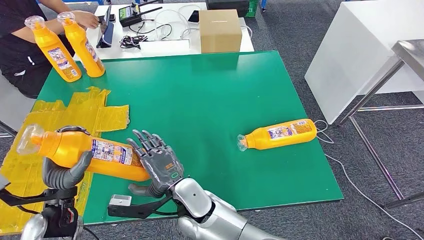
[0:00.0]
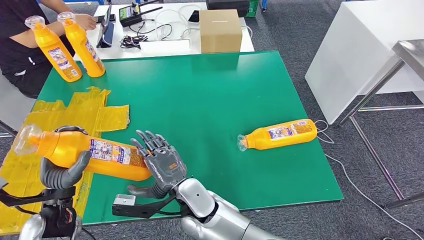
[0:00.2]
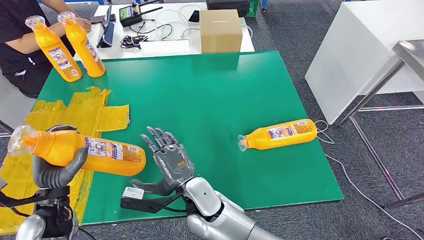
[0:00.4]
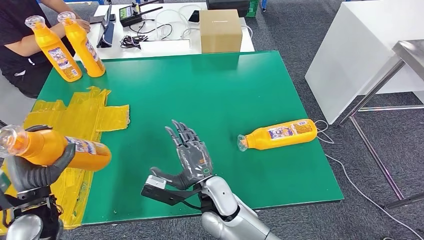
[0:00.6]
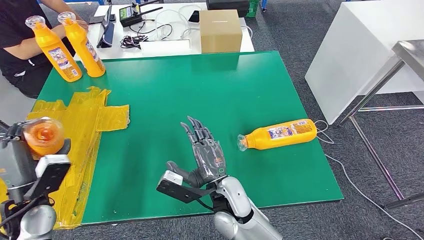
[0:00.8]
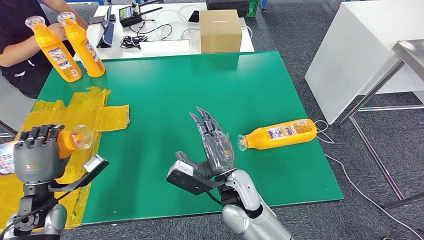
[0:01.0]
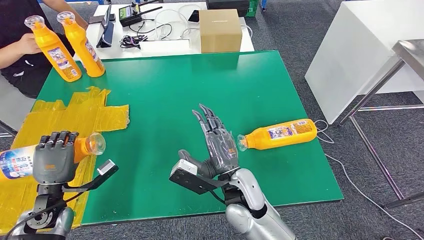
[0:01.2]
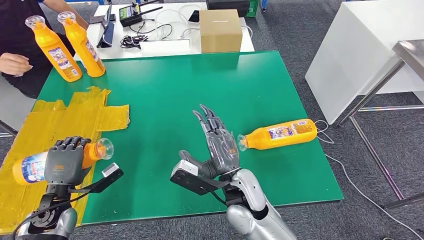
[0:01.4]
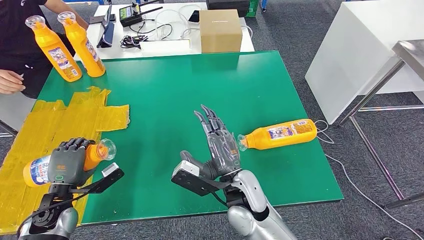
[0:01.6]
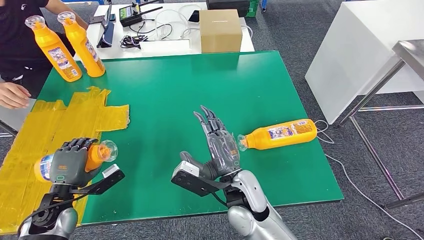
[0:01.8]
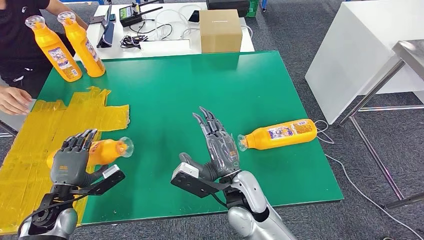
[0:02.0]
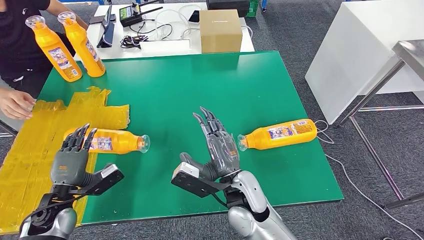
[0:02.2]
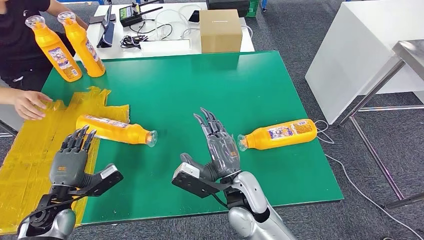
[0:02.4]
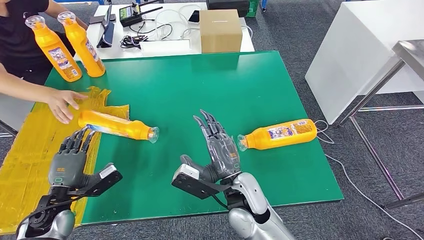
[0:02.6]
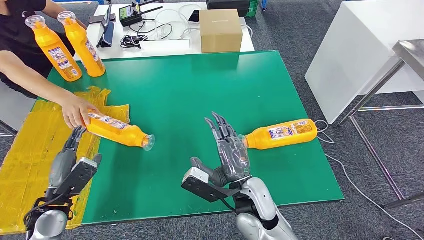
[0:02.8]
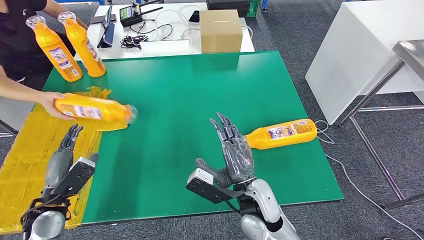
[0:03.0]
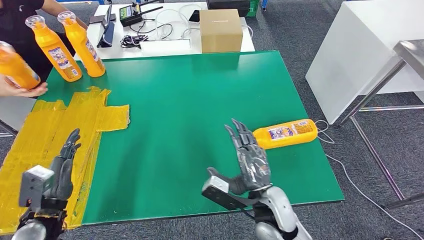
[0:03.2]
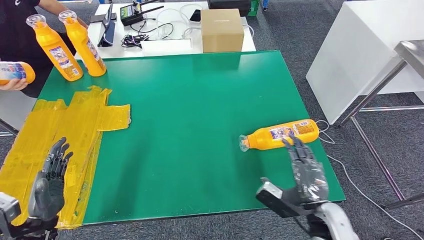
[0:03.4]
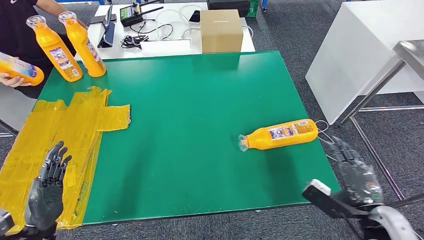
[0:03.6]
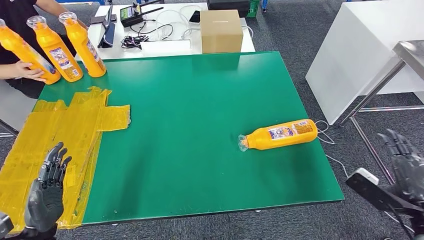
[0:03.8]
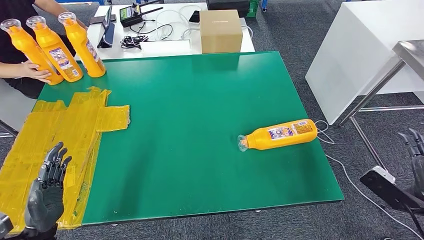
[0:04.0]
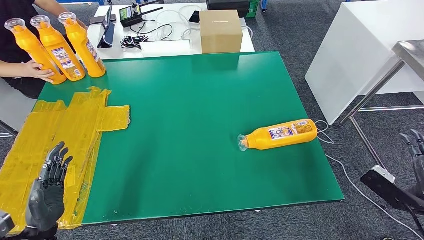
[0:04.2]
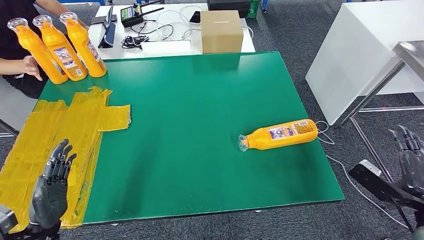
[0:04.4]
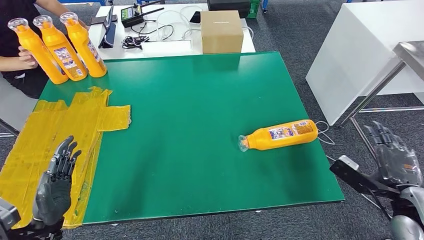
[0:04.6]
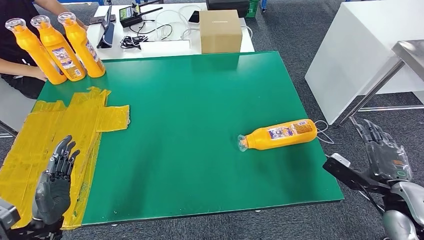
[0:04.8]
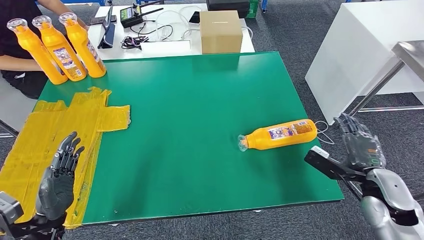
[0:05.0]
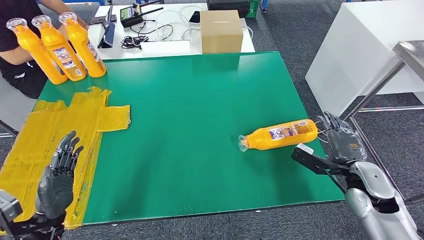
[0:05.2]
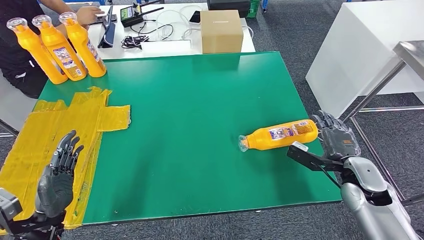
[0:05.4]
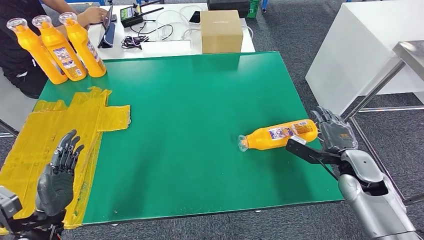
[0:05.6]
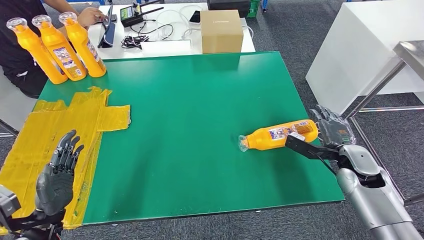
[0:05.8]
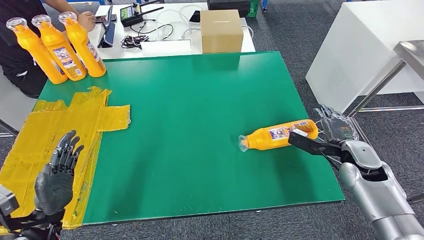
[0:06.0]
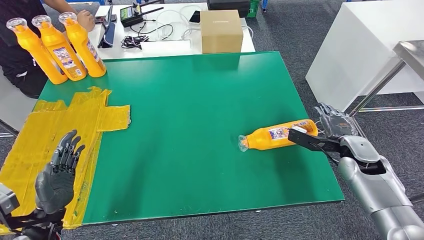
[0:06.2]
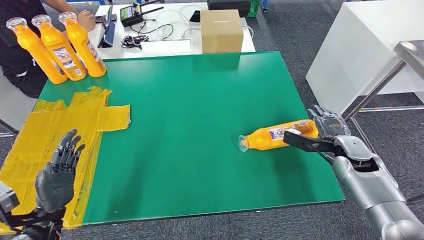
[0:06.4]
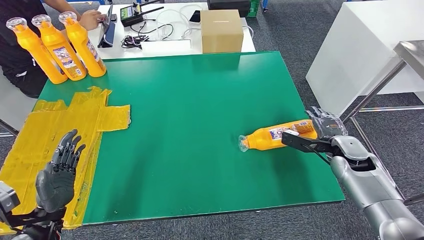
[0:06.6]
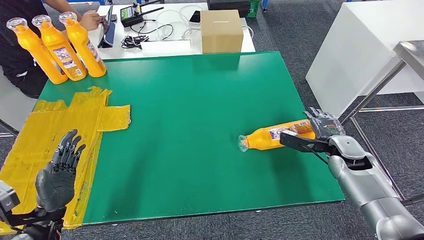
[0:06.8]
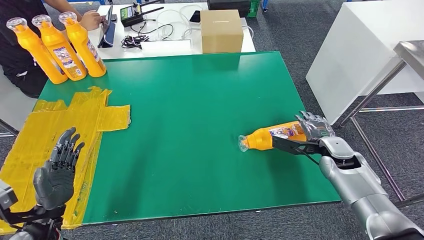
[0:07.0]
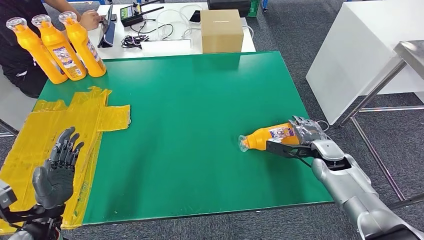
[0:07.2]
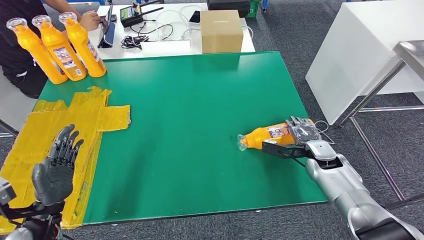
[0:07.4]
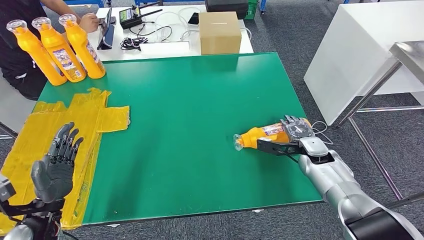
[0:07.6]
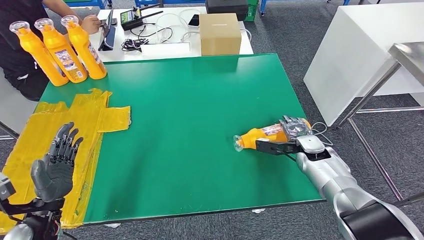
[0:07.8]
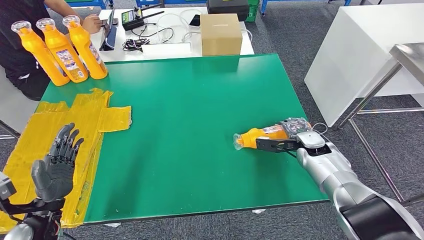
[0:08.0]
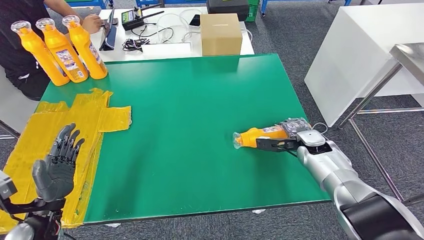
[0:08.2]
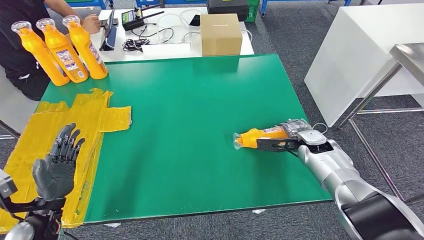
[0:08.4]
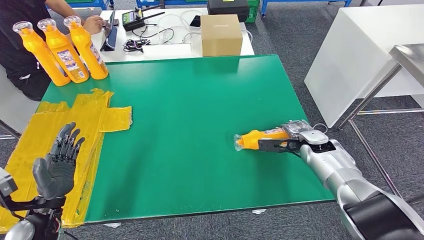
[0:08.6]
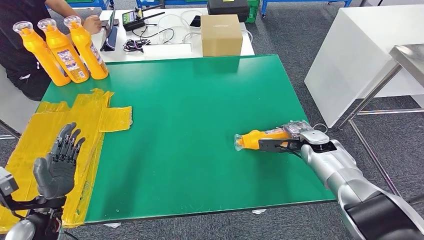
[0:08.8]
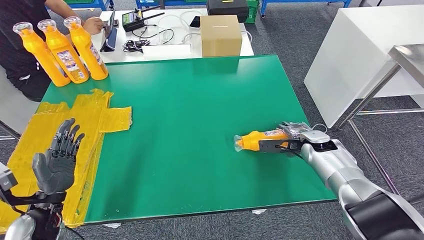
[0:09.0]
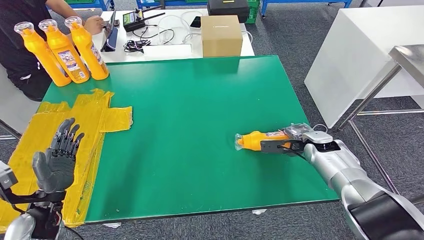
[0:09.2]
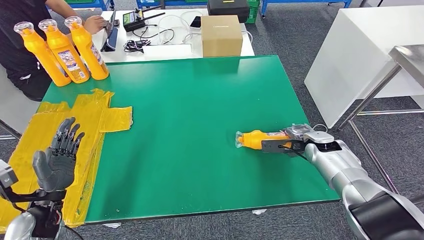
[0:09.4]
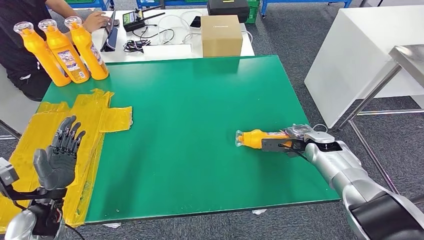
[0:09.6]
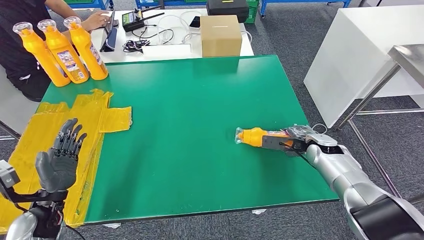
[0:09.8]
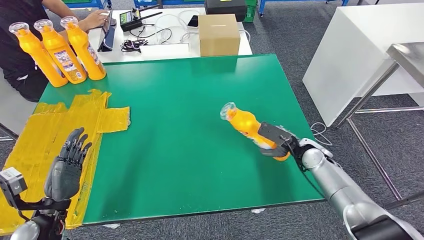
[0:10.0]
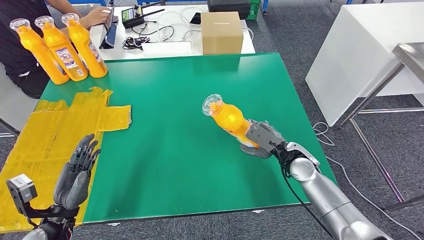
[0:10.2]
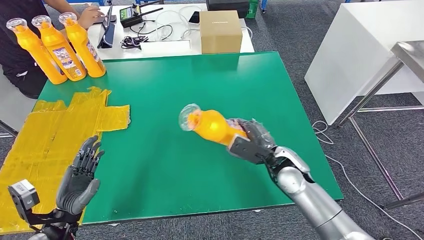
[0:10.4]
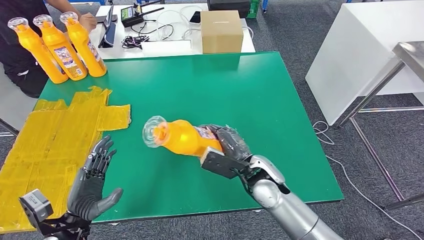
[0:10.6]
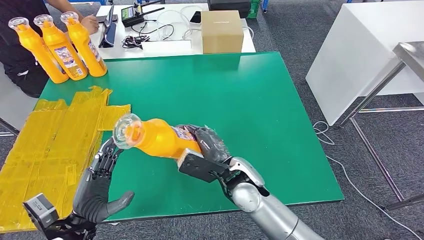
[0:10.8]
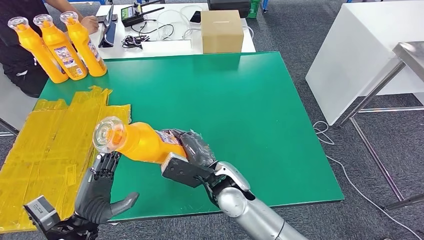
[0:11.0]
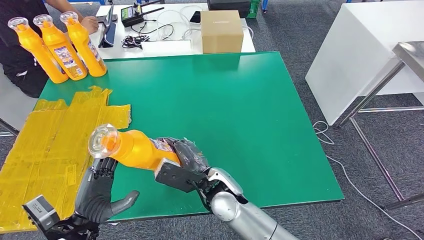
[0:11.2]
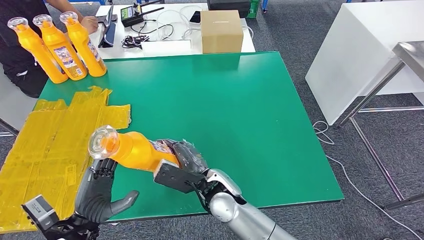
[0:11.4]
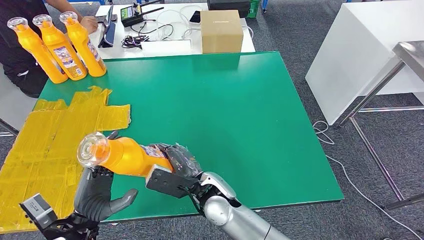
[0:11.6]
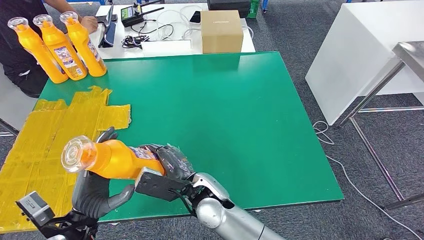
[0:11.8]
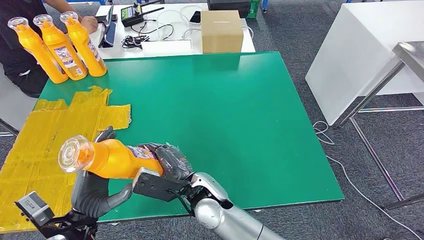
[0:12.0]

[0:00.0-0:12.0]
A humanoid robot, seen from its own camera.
Step, 0:00.0 to 0:02.8: Flip the fast-moving consumer goods bottle to the front side.
Step, 0:03.0 to 0:11.6: Pick up the fast-moving consumer goods bottle from the table.
0:00.0 to 0:01.6: The left hand shifts roughly 5 cm downward. The right hand is displaced to the right by approximately 10 cm.
0:04.4 to 0:06.0: The right hand travels forward by roughly 15 cm.

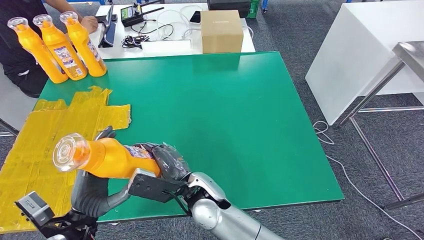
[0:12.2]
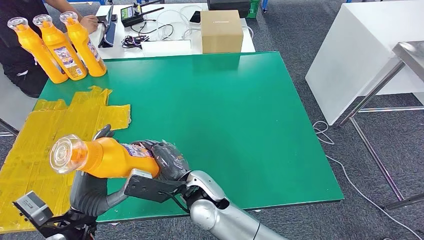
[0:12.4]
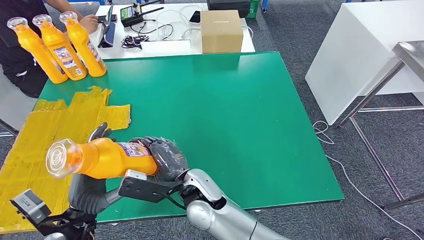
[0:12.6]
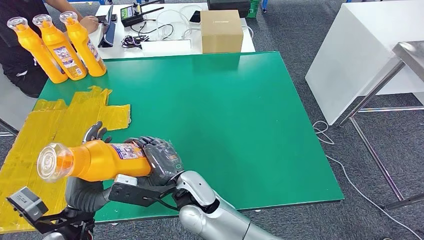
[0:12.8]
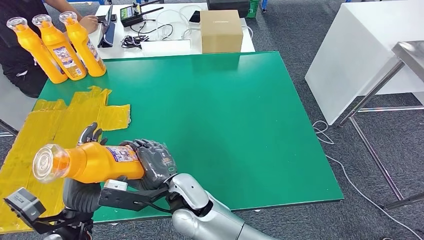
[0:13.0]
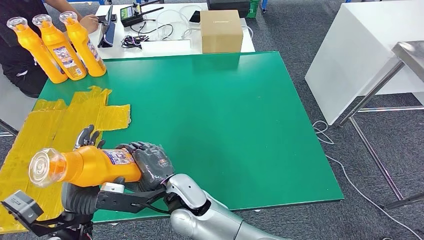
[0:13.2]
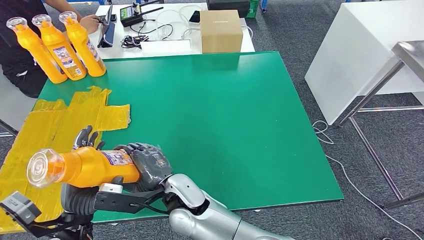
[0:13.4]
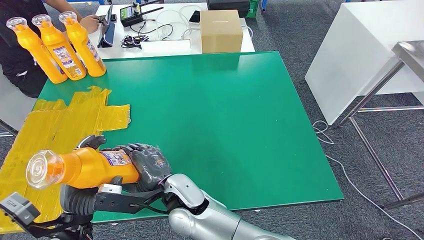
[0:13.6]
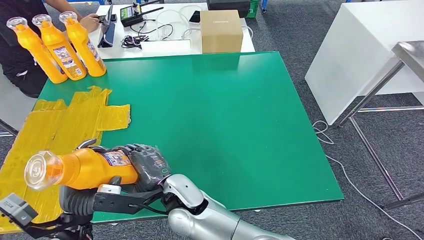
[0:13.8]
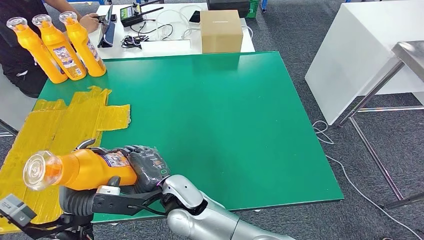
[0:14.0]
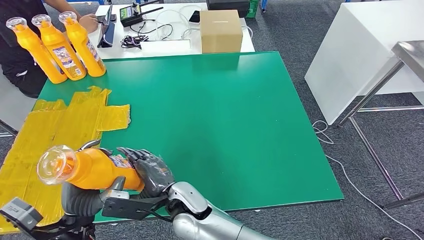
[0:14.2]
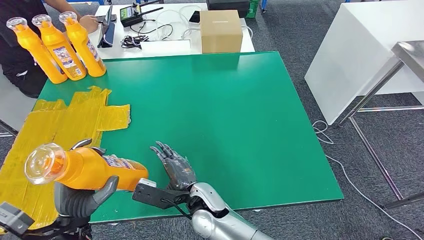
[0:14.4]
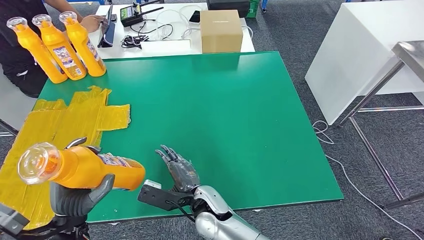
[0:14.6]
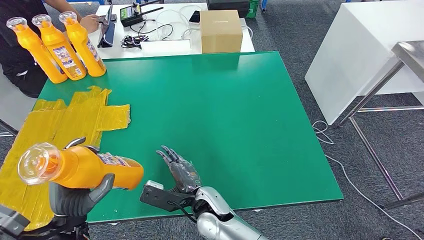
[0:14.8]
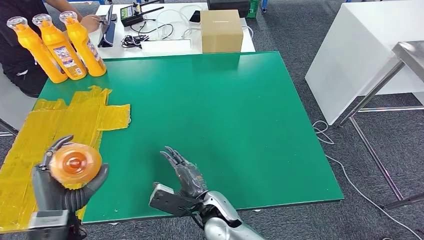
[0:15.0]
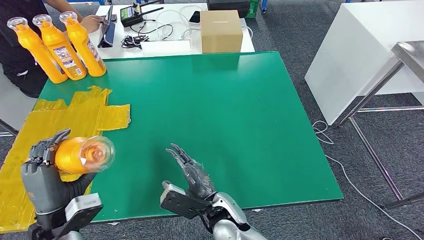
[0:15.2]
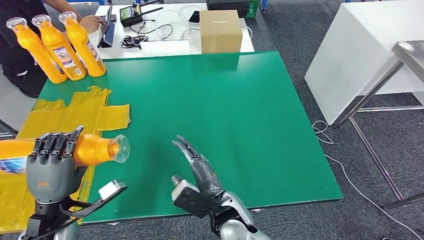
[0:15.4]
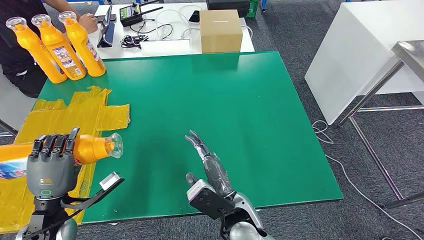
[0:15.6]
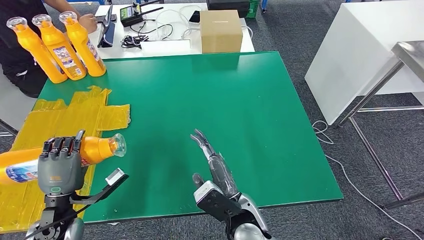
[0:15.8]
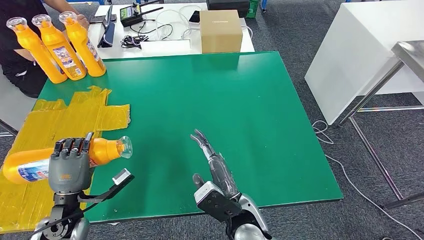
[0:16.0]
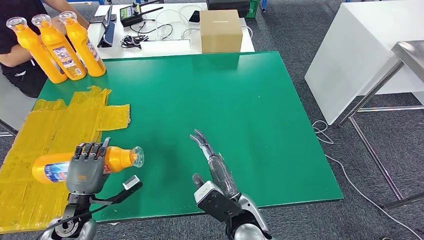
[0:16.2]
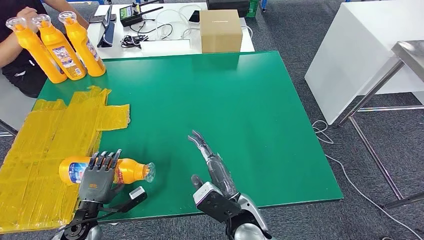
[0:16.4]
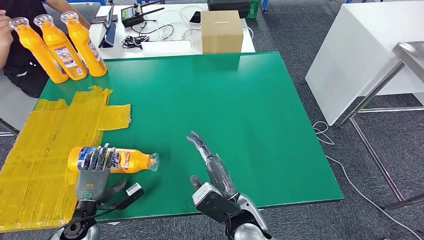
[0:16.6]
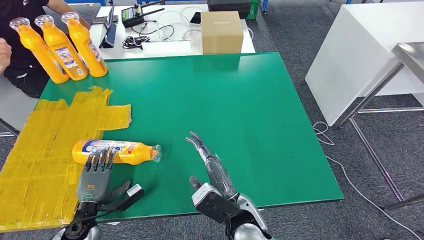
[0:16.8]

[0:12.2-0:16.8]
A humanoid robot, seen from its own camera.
Step, 0:12.2 to 0:16.8: Flip the fast-moving consumer goods bottle to the front side.
0:12.2 to 0:13.8: The right hand goes roughly 5 cm to the left.
0:13.8 to 0:15.2: The right hand shifts roughly 10 cm to the right and downward.
0:15.2 to 0:16.8: The left hand travels downward by roughly 15 cm; the right hand ends up approximately 5 cm from where it was.
